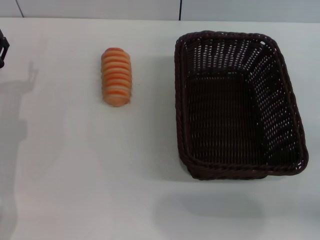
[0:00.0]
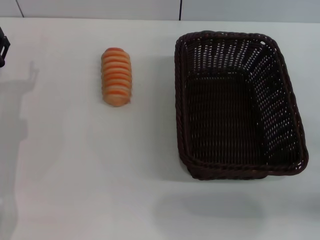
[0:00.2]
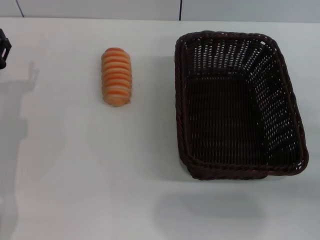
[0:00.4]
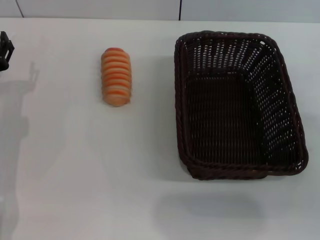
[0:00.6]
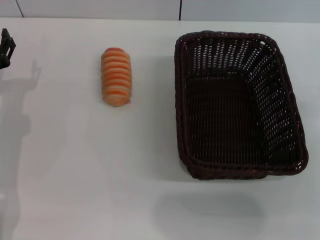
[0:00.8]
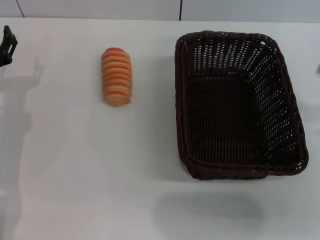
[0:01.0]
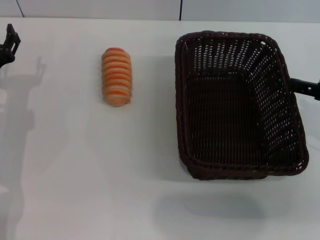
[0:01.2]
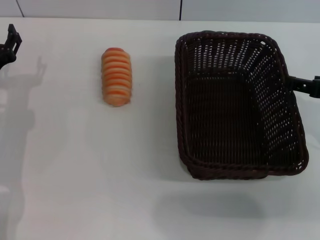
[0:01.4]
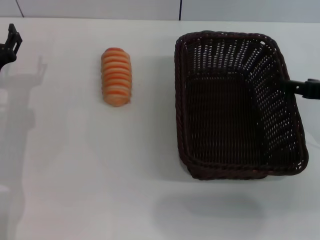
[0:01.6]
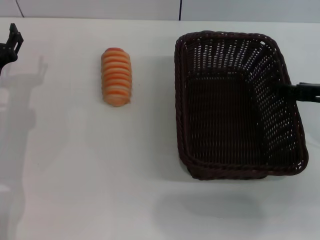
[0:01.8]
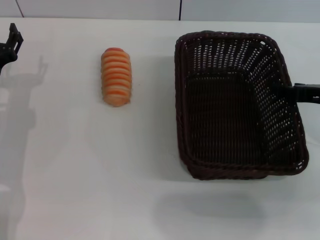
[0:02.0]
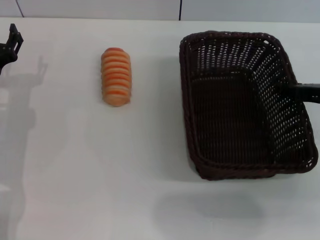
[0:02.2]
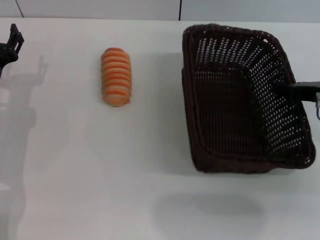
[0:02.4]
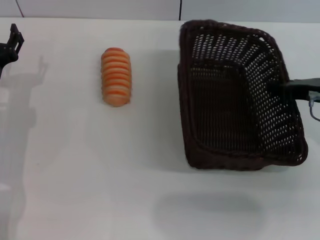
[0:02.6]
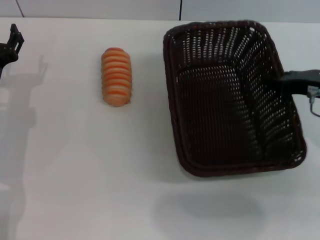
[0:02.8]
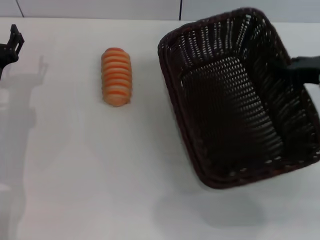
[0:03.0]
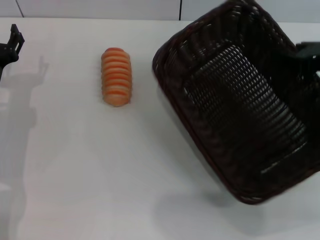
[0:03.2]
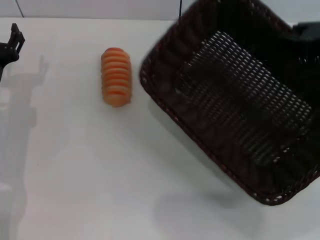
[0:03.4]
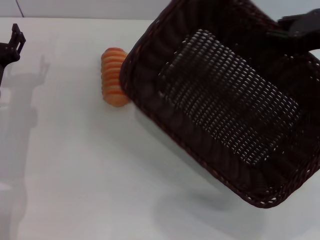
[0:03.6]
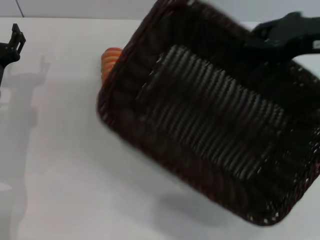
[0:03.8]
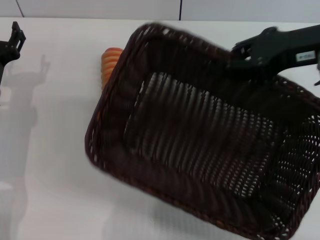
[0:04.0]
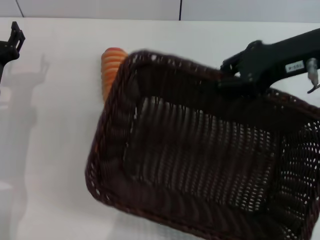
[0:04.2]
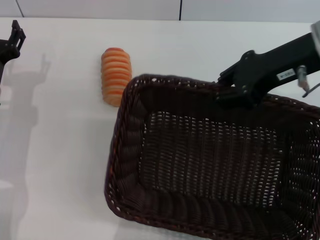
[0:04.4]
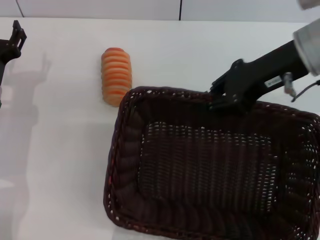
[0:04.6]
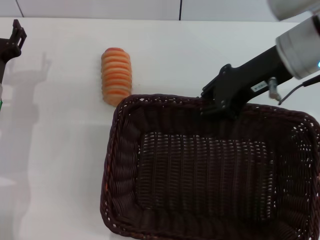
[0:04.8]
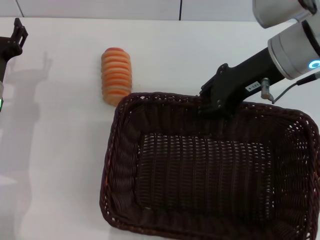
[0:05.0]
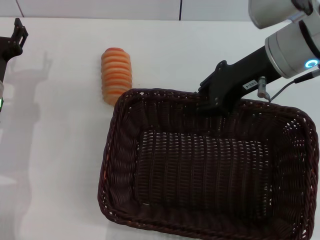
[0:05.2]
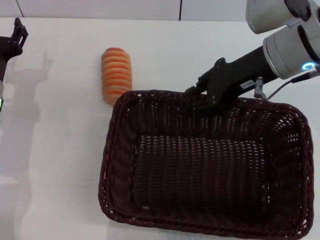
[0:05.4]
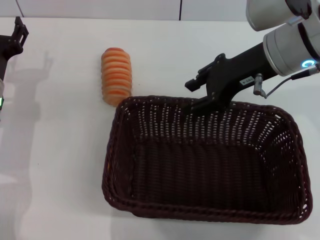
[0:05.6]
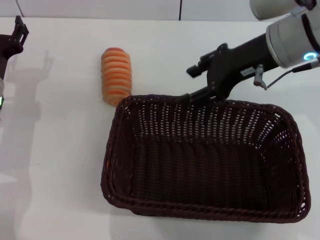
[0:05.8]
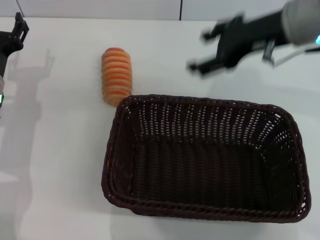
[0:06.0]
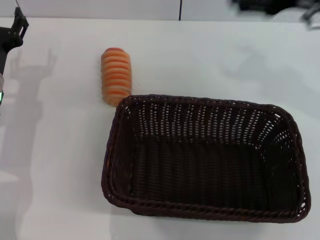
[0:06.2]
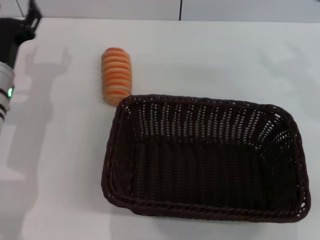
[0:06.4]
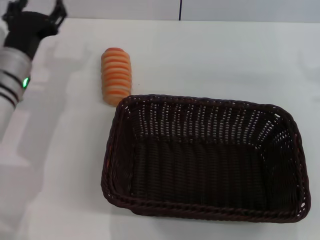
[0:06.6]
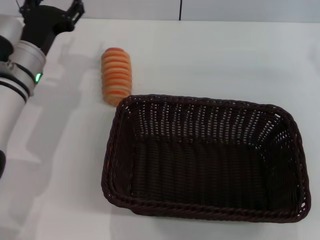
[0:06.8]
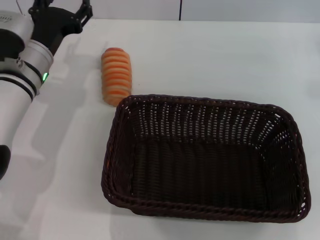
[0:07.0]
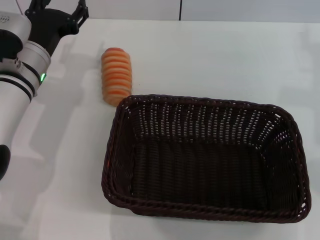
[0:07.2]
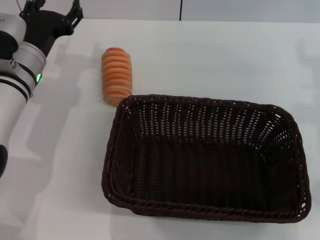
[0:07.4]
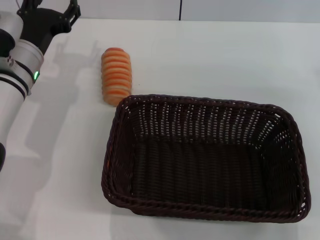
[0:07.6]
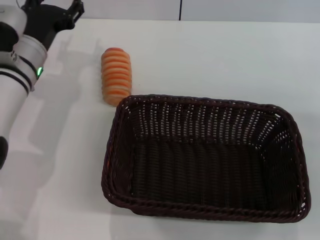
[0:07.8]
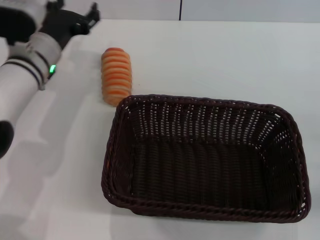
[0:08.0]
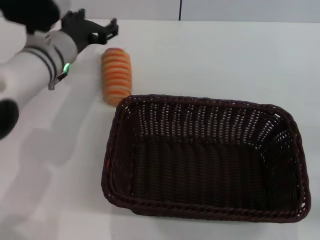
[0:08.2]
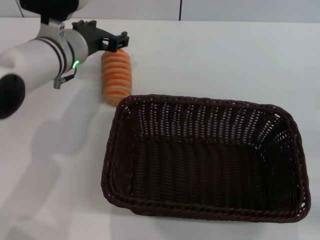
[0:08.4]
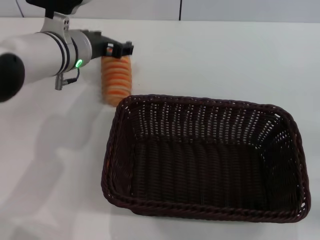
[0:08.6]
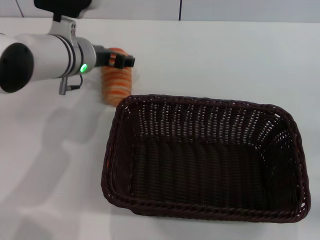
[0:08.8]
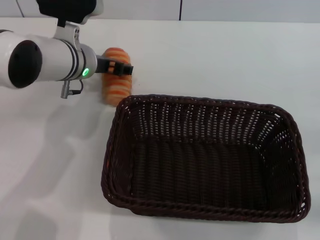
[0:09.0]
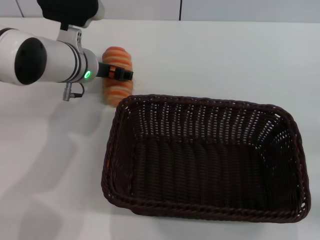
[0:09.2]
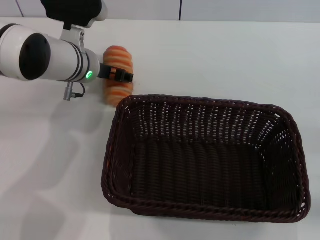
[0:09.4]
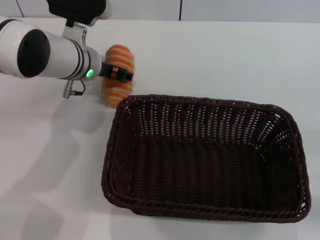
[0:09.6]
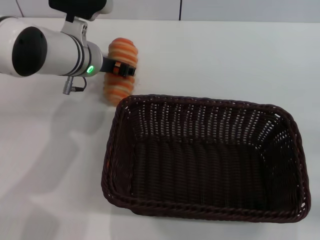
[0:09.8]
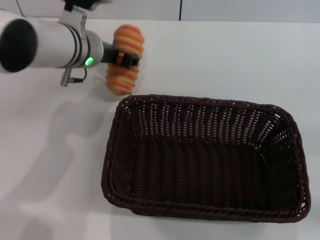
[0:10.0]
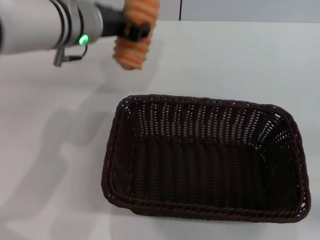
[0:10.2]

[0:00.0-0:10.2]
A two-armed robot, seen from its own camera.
Step, 0:00.0 to 0:02.8: Pick up the dark basket with the right gripper.
Step, 0:03.0 to 0:05.4: Place the dark basket in the center of view with the right gripper.
Step, 0:05.8 to 0:10.0: Pick up the long bread with the left gripper.
0:00.0 to 0:01.4: The right gripper heads upward, forward and to the left, covering approximately 15 cm.
0:01.4 to 0:03.0: The right gripper closes up.
0:03.0 to 0:04.4: The right gripper moves upward and to the left, approximately 10 cm.
0:04.4 to 0:05.8: The right gripper opens.
0:05.8 to 0:07.2: The right gripper moves to the right, roughly 10 cm, and opens; the left gripper heads to the right, covering some 5 cm.
0:07.2 to 0:08.8: The right gripper goes approximately 25 cm backward, downward and to the right, while the left gripper shifts some 5 cm to the right.
0:08.8 to 0:10.2: The left gripper heads upward, covering approximately 10 cm, and closes its fingers.

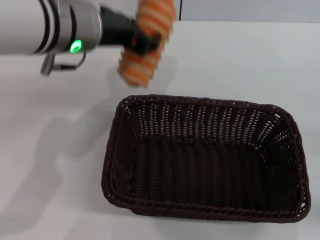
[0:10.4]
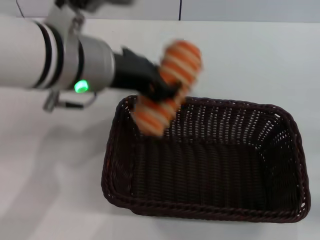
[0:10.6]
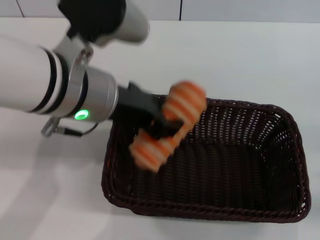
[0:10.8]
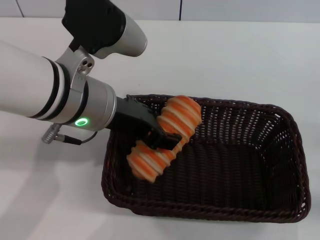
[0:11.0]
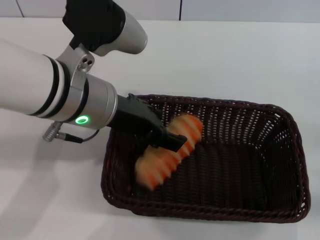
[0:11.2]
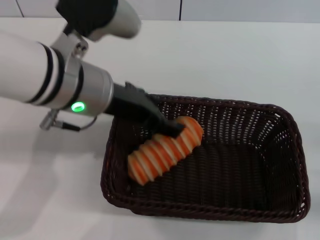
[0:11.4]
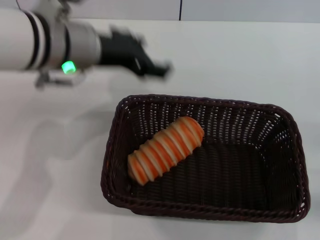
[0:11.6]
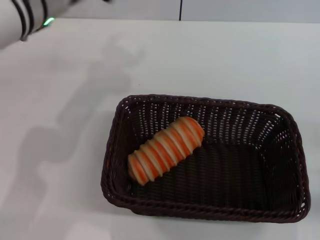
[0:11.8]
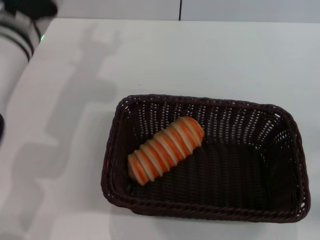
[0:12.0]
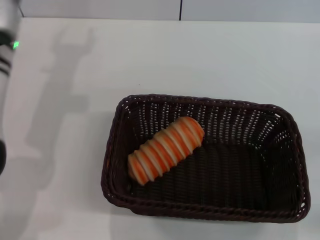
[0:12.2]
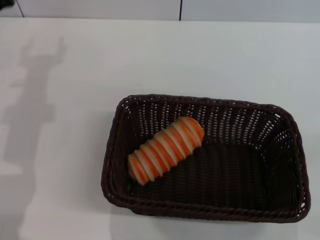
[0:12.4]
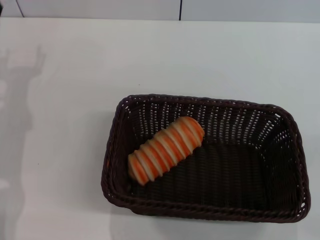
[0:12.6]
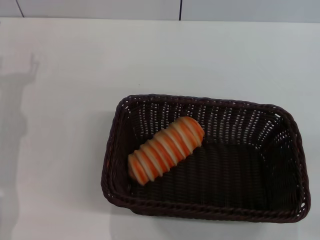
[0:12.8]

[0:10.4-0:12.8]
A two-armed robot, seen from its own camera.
Step, 0:10.4 to 0:11.4: Place the long bread into the dark basket with the left gripper.
0:10.4 to 0:11.6: The left gripper opens.
0:11.6 to 0:12.8: The left gripper shifts some 25 cm to the left and downward.
